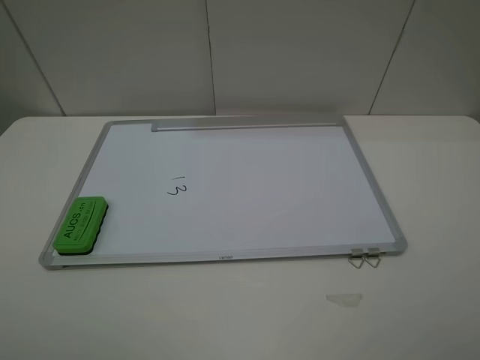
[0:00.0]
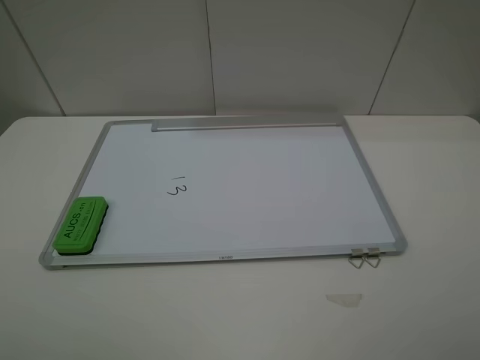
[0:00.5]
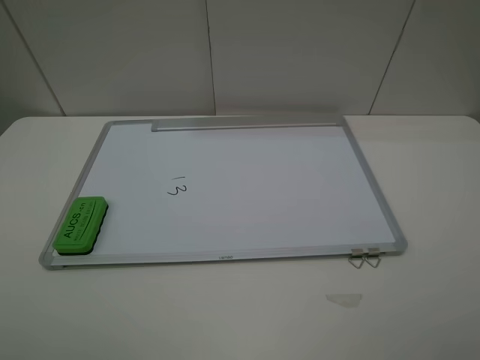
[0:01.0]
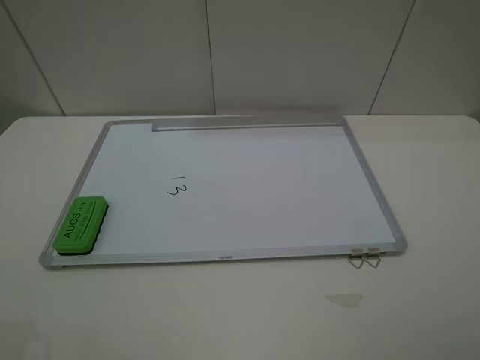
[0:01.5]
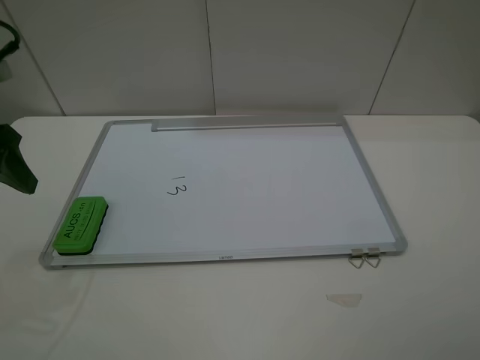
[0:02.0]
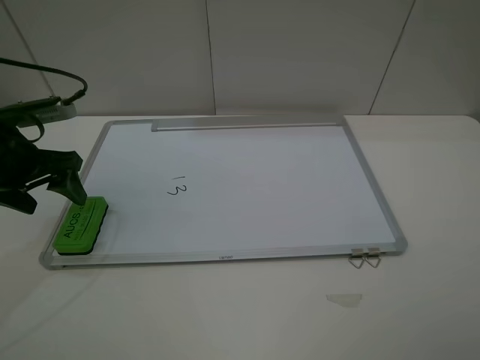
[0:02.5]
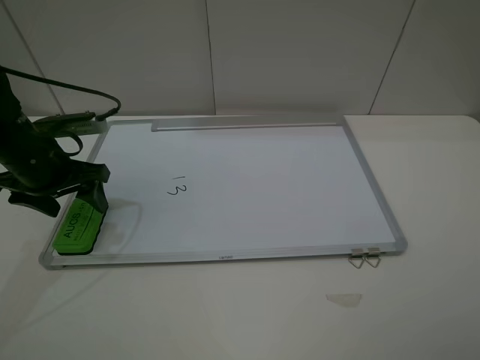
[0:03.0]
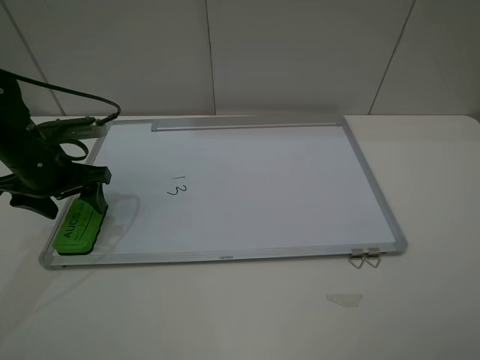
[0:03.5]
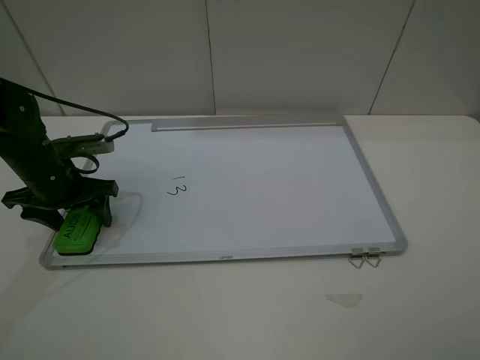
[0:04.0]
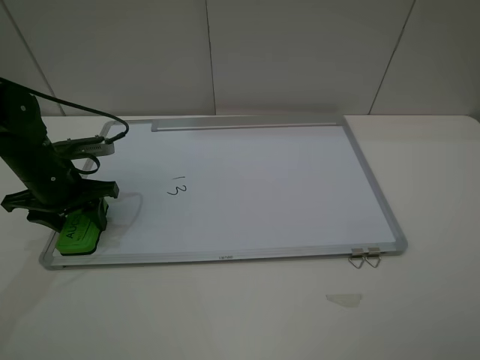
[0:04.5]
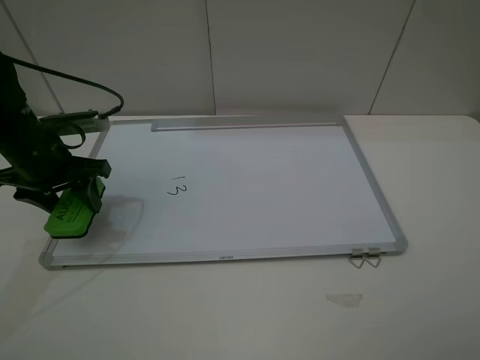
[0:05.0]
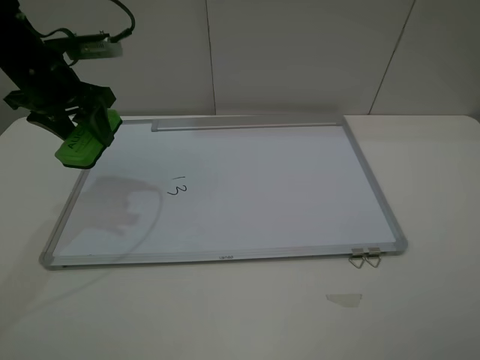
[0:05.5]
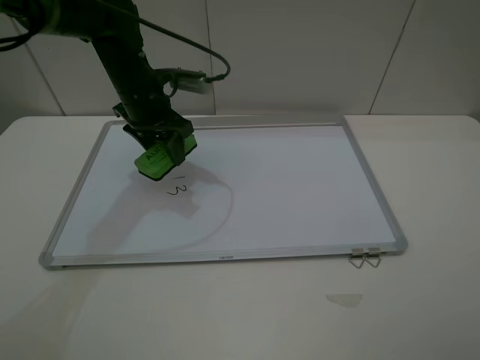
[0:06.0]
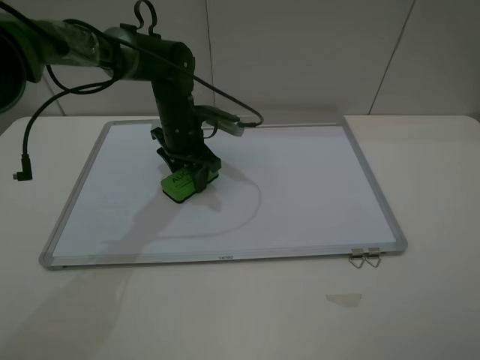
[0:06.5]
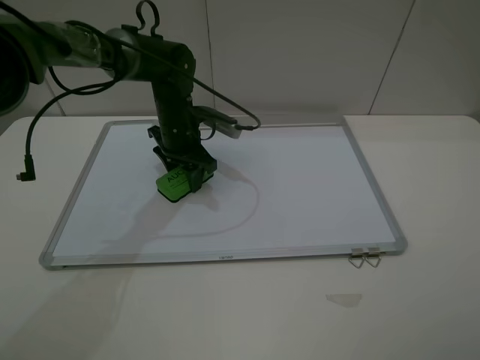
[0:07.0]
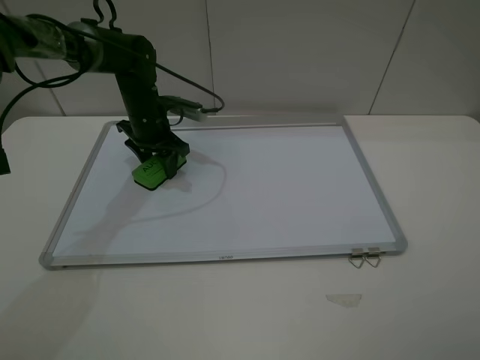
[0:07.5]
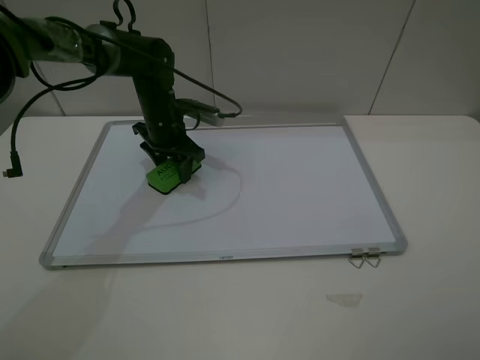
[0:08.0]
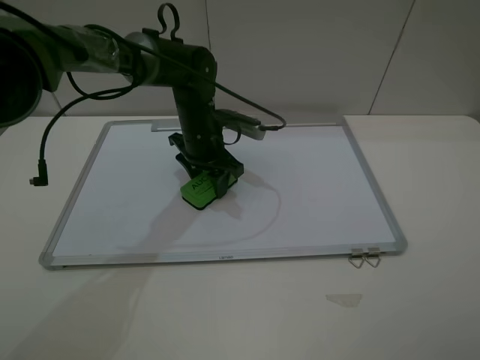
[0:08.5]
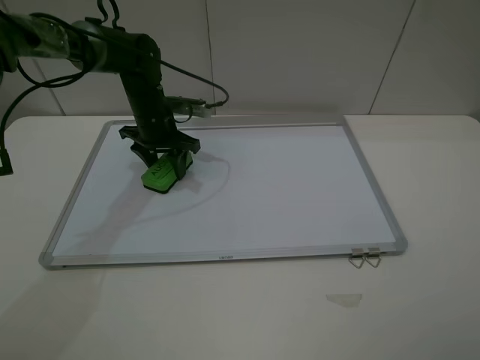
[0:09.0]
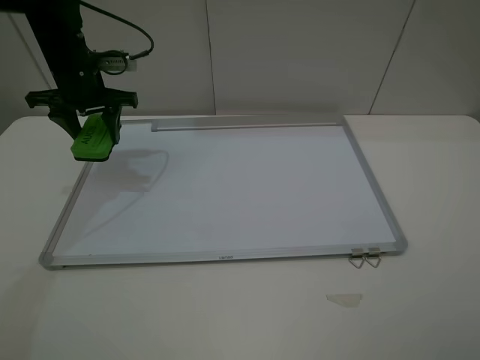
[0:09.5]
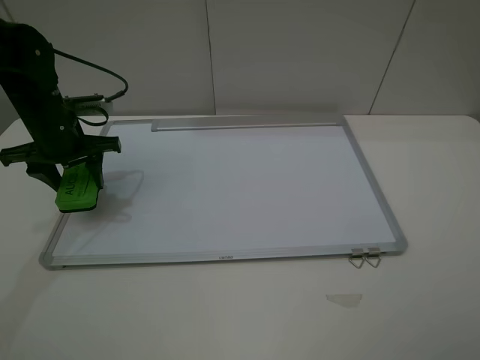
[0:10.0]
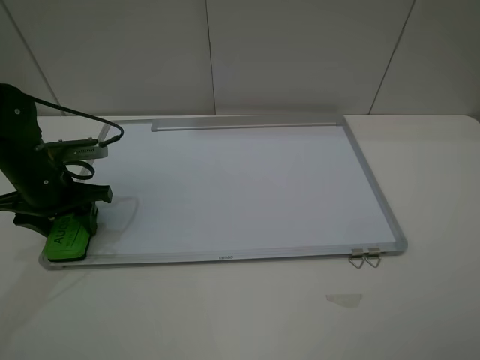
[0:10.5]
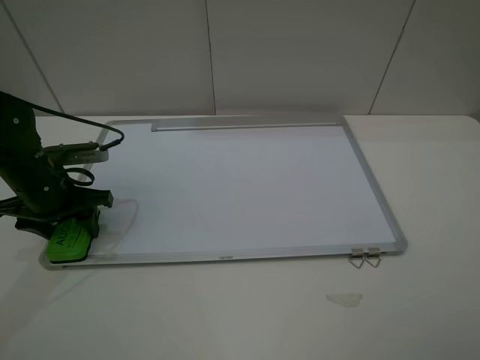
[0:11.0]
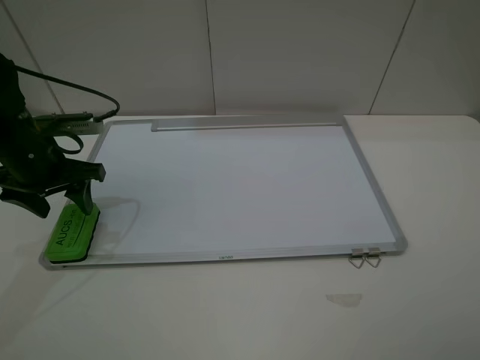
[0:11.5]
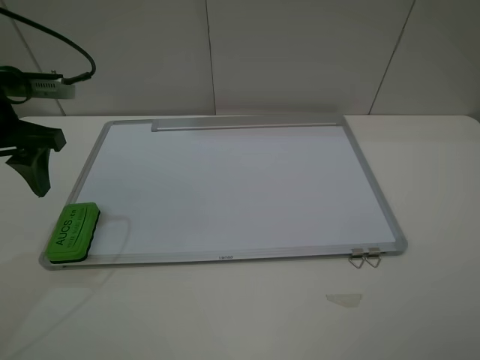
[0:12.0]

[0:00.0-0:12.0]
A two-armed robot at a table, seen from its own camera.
Step, 0:00.0 to 0:04.5: Grasp the eraser with the left gripper.
Step, 0:05.0 to 0:08.5: Grasp the eraser and wipe the blackboard with the left gripper.
Step, 0:09.0 to 0:11.0: Place the eraser with the left gripper.
0:00.0 to 0:02.0: The left gripper is displaced forward by approximately 25 cm, and opens up.
0:02.0 to 0:04.0: The left gripper heads downward and forward, covering some 15 cm.
0:04.0 to 0:06.0: The left gripper is displaced to the right, forward and upward by about 20 cm, and closes.
0:06.0 to 0:08.0: The left gripper travels downward by some 5 cm.
0:08.0 to 0:10.0: The left gripper moves to the left and backward, some 15 cm.
0:10.0 to 0:12.0: The left gripper travels upward and backward by some 10 cm.

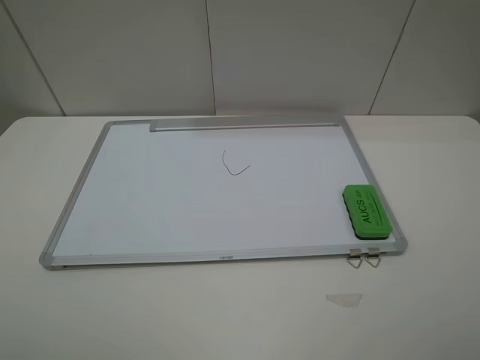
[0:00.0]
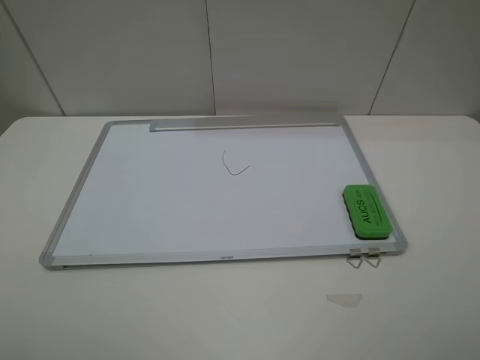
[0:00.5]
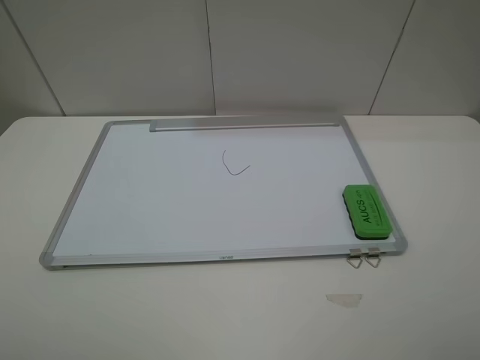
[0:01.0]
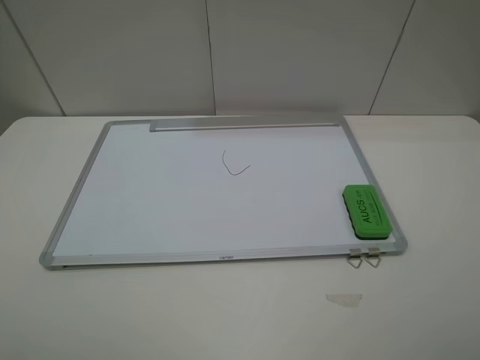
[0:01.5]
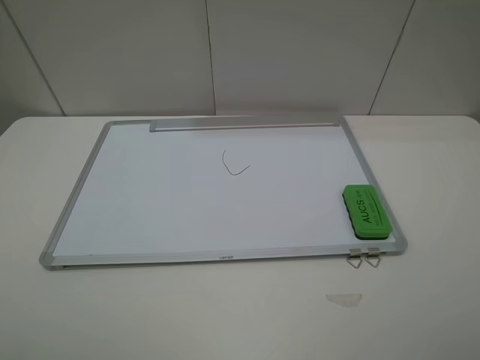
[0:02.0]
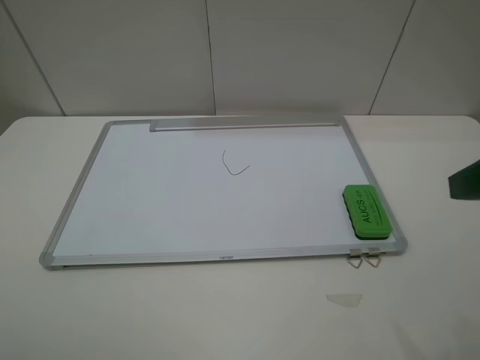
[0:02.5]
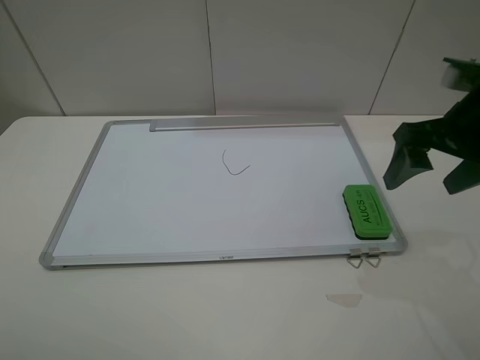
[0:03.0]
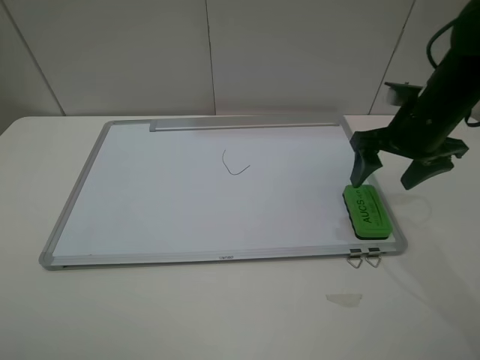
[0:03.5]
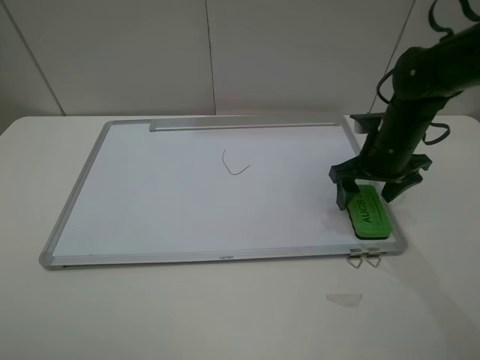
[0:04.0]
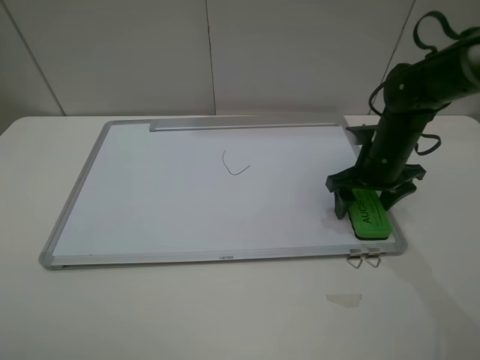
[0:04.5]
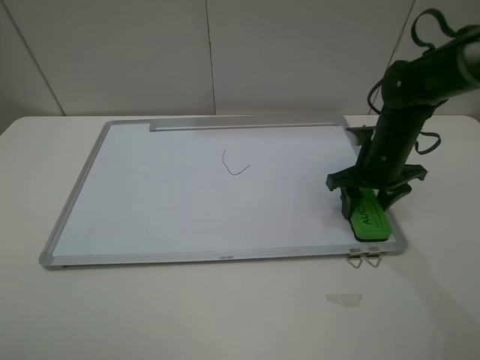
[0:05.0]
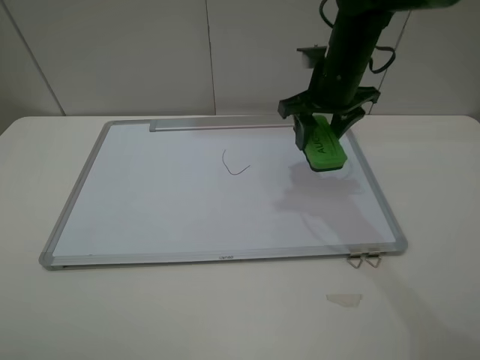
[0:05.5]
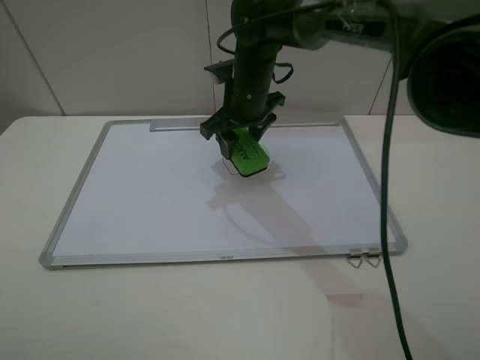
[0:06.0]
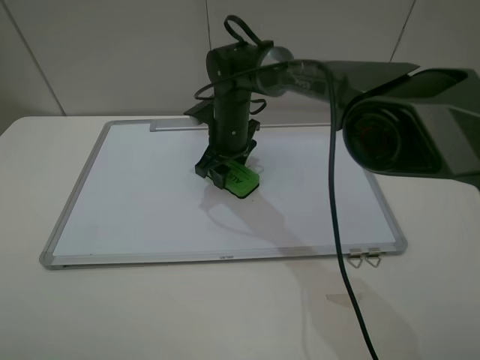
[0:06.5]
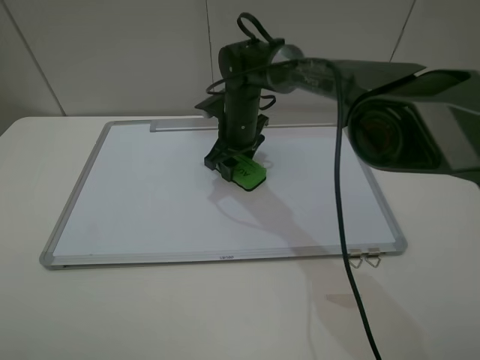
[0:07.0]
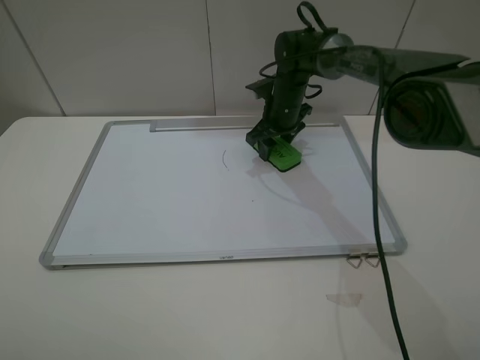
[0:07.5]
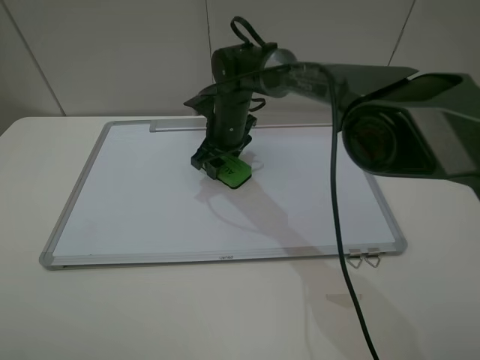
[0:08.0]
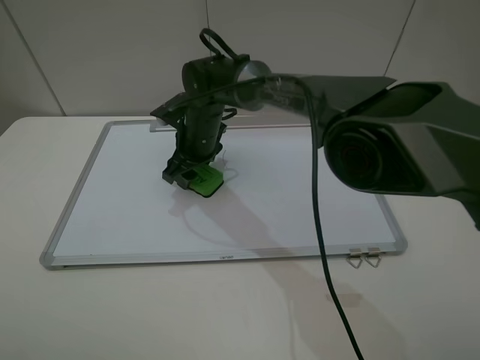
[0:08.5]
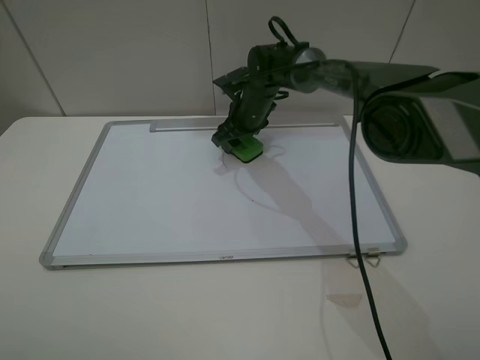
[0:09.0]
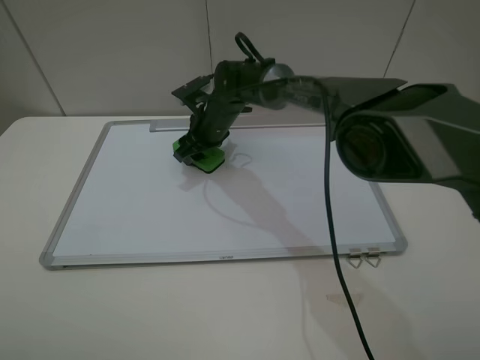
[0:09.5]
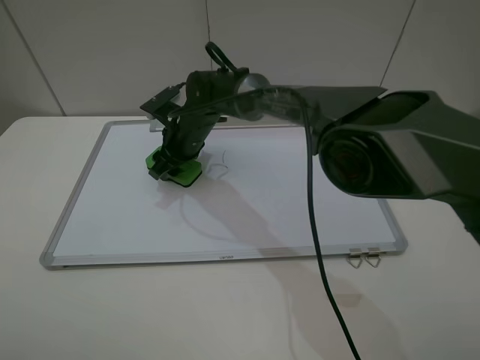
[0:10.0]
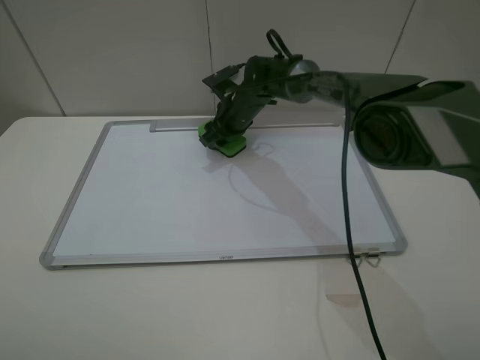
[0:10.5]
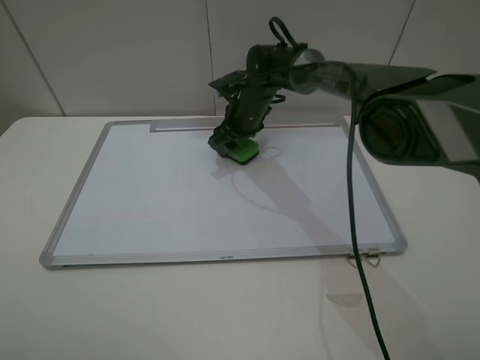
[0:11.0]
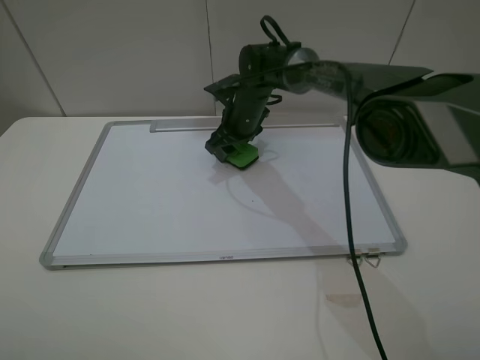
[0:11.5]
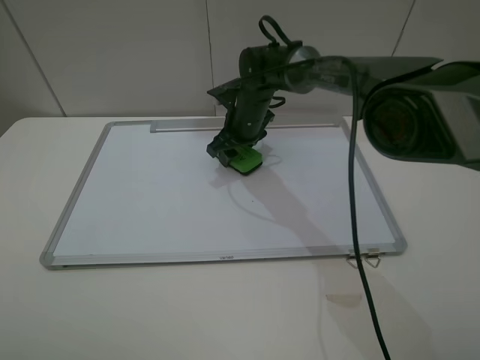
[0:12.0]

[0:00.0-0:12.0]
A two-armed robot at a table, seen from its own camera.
Step, 0:00.0 to 0:04.5: Grasp the eraser with the right gripper.
0:02.0 to 0:04.0: The right gripper shifts about 40 cm forward and downward.
0:04.0 to 0:06.0: The right gripper heads to the left, covering roughly 20 cm, and closes up.
0:06.0 to 0:08.0: The right gripper moves downward, roughly 10 cm, and travels to the right and back again, about 5 cm each way.
0:08.0 to 0:10.0: The right gripper travels to the left by about 5 cm.
0:10.0 to 0:12.0: The right gripper moves to the right, approximately 10 cm.

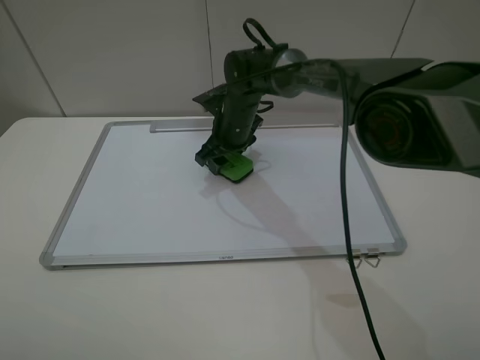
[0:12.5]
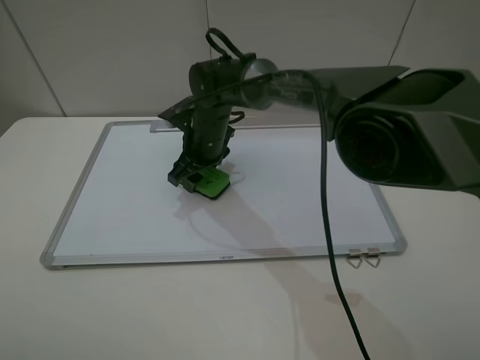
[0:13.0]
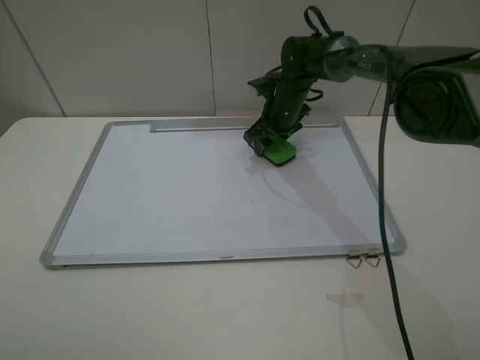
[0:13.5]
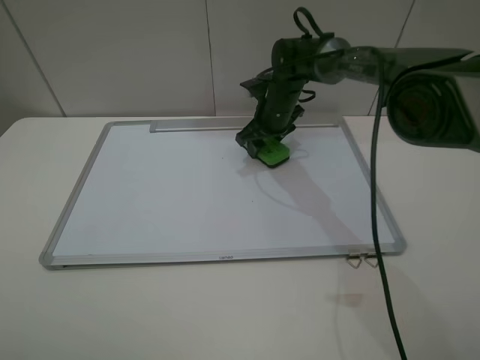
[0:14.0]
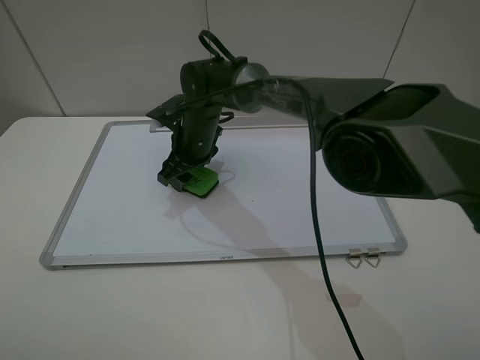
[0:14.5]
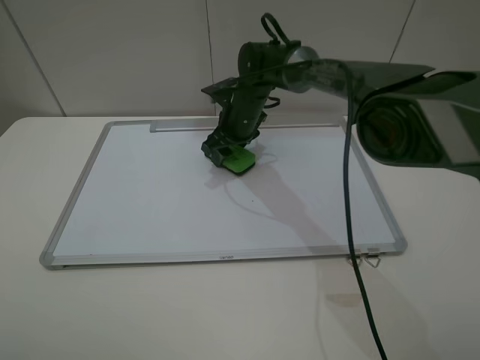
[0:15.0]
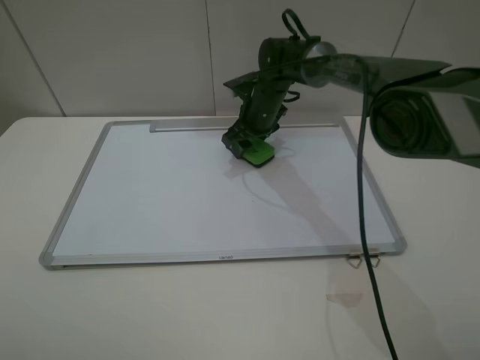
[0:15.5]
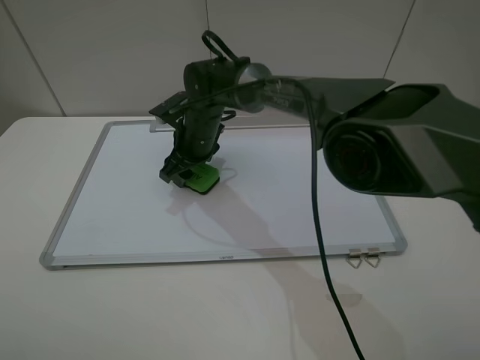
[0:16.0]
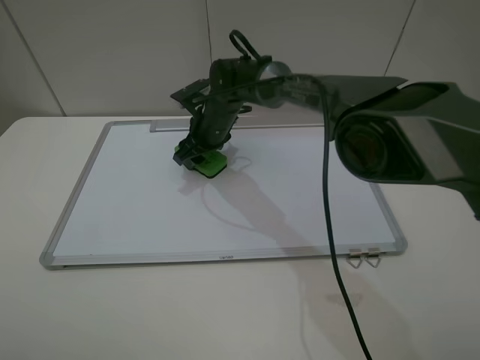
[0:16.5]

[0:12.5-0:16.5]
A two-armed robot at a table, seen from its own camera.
0:12.5 to 0:14.5: The right gripper swings left and right, some 15 cm each way, with 2 reversals.
0:14.5 to 0:16.5: The right gripper travels to the right and back again, roughly 10 cm each way.
